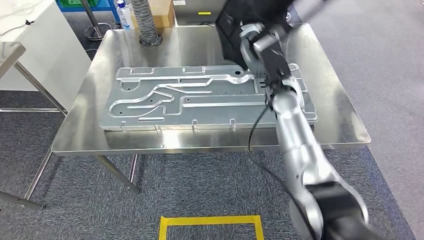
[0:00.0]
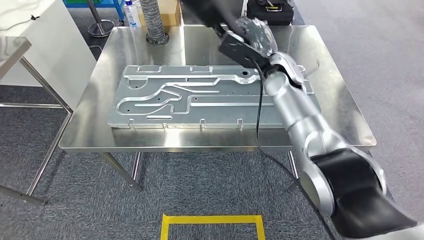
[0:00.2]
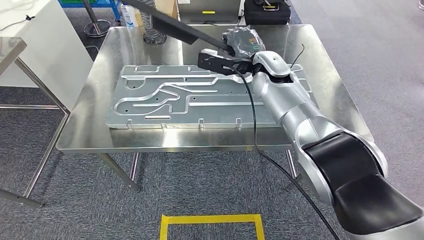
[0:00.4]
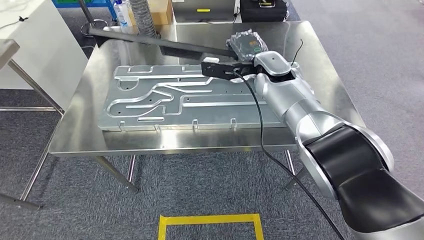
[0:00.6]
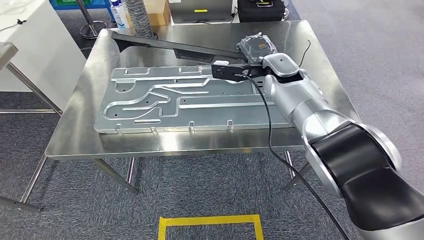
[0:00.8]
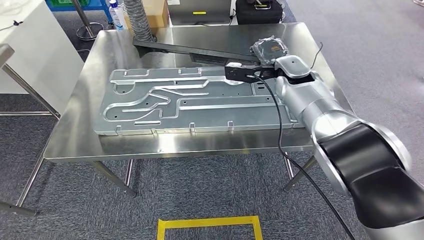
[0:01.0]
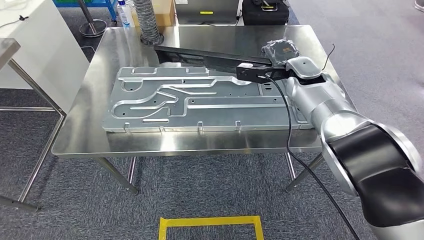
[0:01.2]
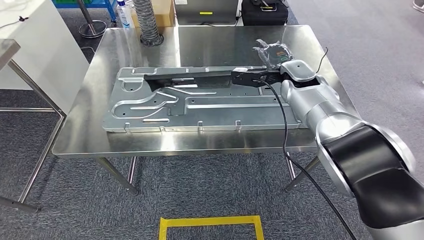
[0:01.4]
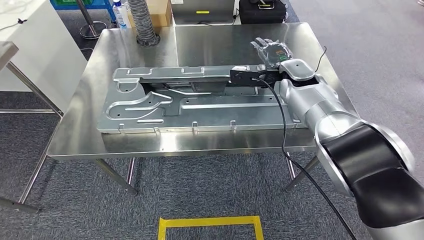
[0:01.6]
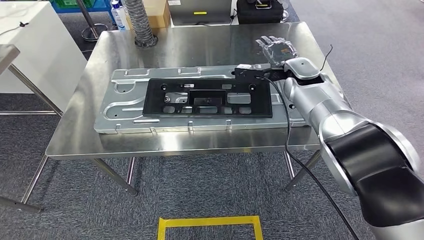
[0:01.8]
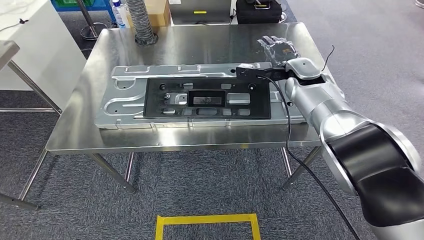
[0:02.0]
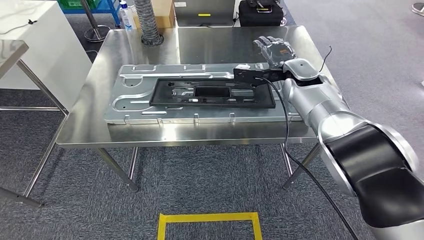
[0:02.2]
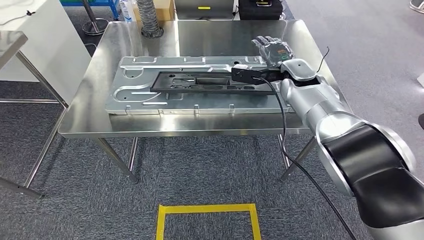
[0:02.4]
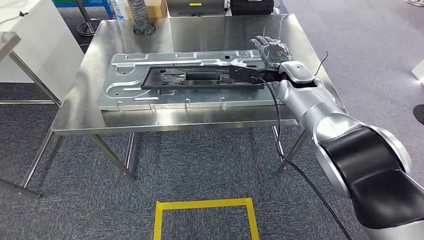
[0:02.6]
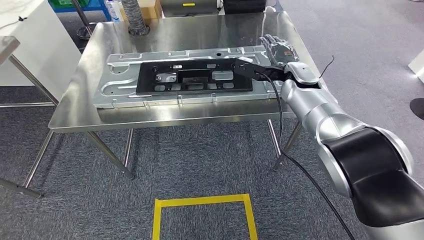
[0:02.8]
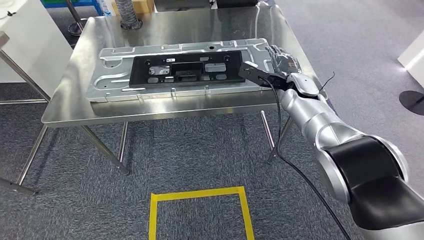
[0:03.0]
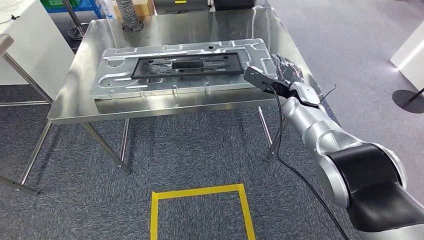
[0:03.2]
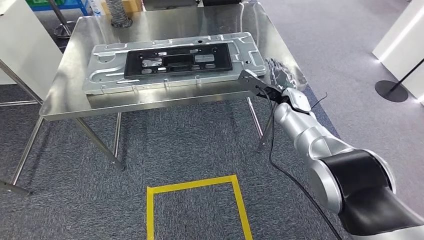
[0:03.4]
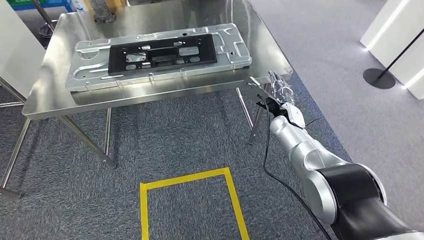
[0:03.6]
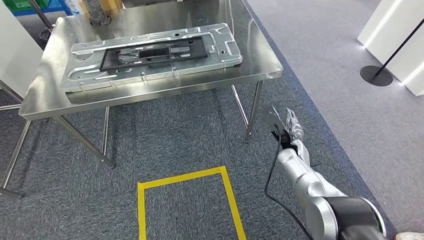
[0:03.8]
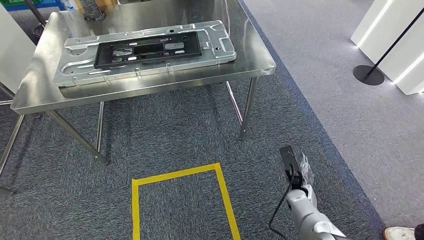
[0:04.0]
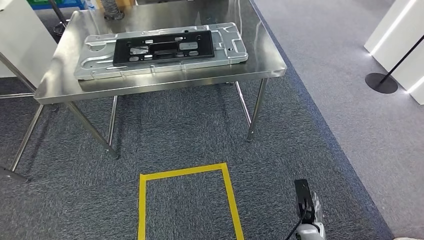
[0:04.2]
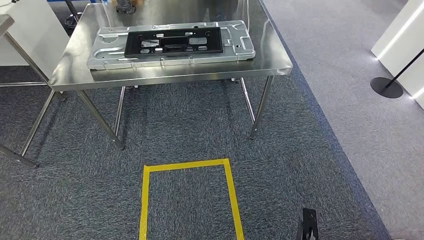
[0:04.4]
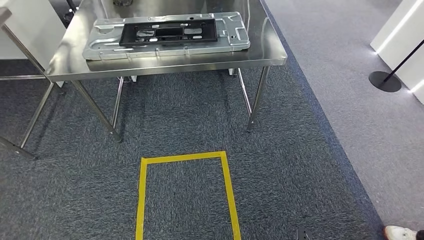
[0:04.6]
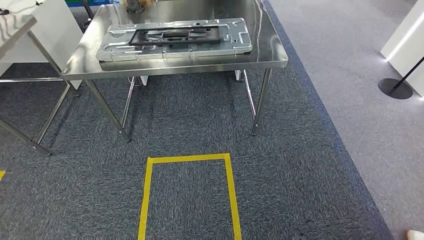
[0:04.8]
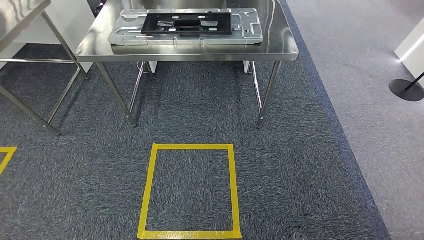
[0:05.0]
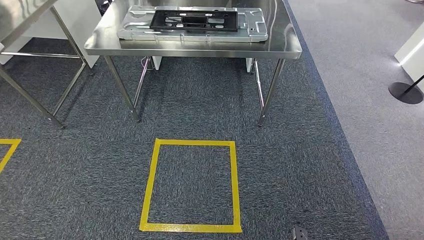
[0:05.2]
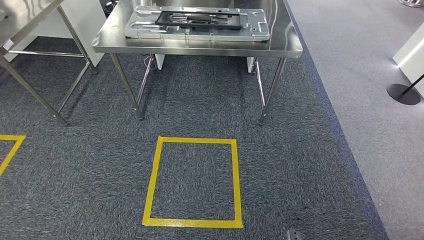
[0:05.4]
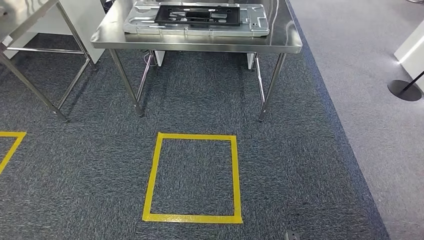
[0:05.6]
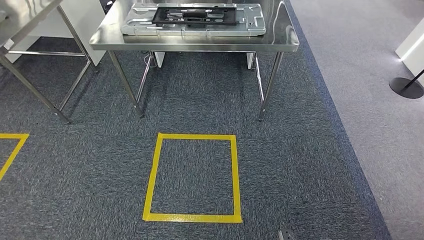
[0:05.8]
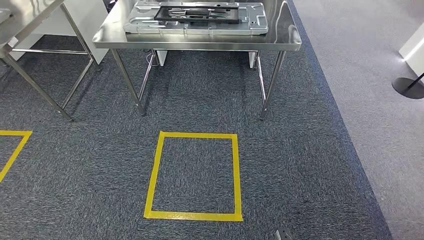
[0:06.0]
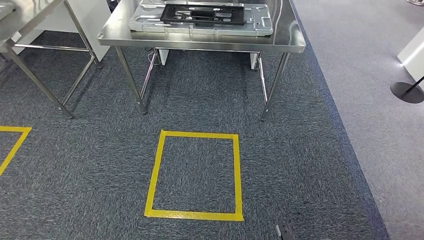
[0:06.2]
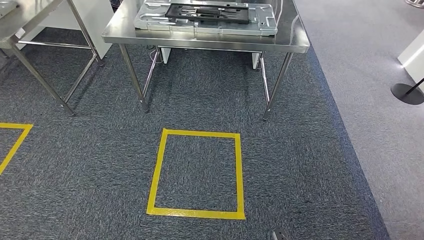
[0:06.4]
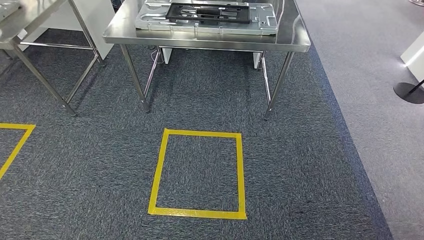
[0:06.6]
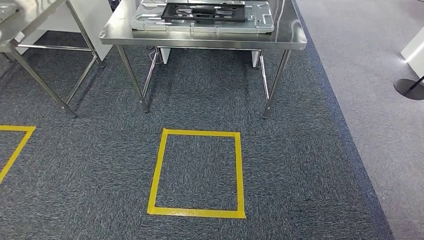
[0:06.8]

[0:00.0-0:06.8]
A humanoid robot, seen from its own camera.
Step, 0:00.4 to 0:03.0: Insert the large material into the corresponding slot on the workbench.
Step, 0:04.2 to 0:06.8: Move to the initial position of the shelf.
0:05.4 to 0:06.8: The right hand is displaced backward by some 10 cm.
